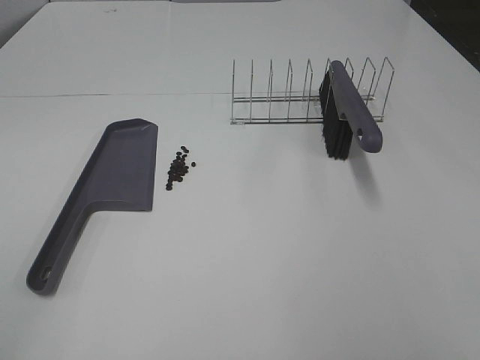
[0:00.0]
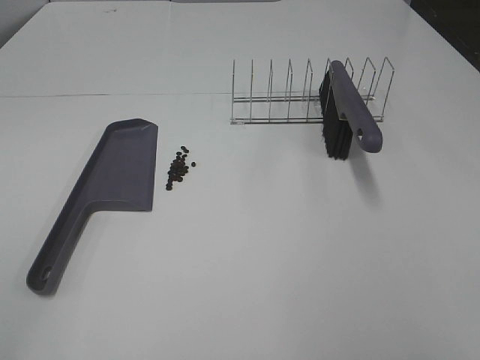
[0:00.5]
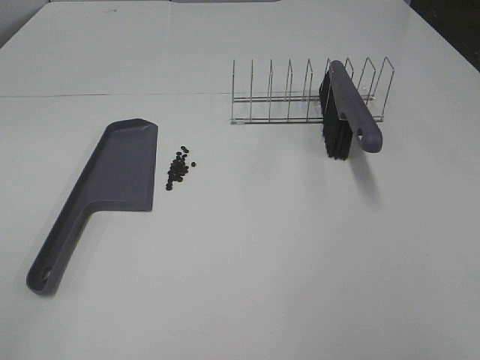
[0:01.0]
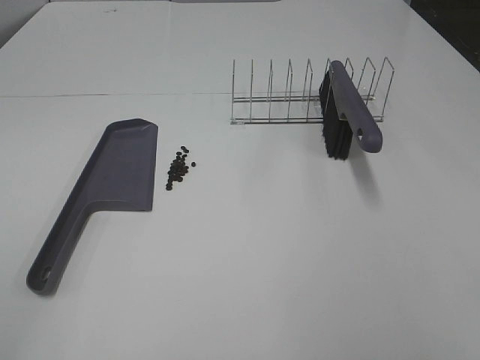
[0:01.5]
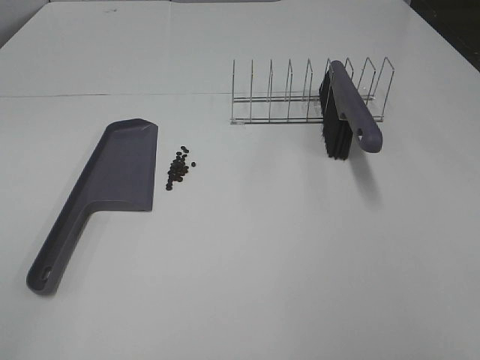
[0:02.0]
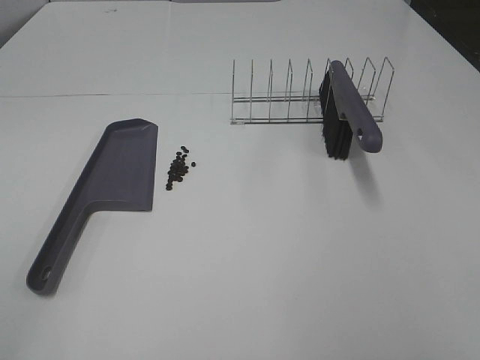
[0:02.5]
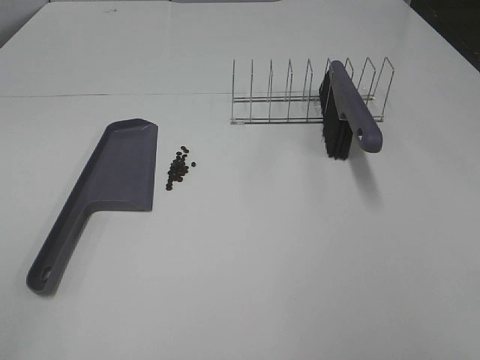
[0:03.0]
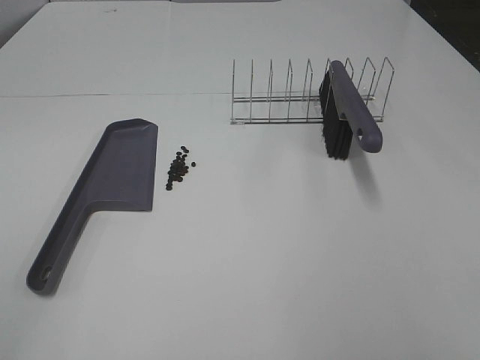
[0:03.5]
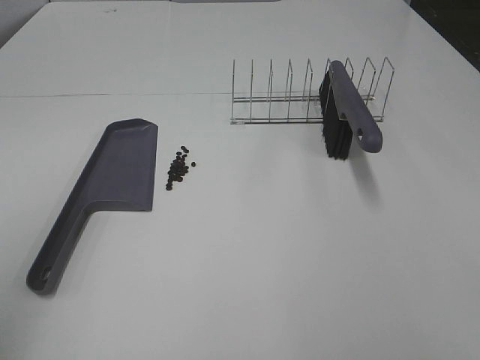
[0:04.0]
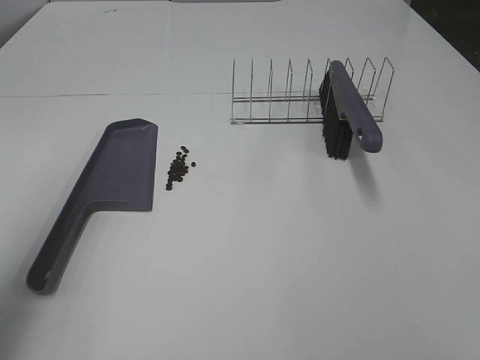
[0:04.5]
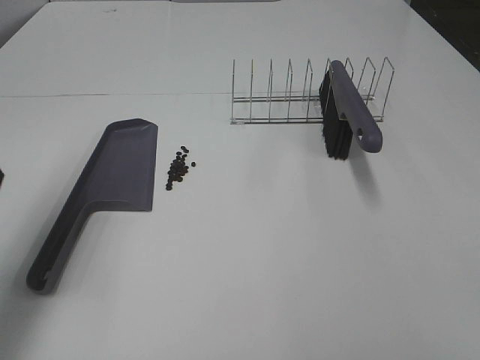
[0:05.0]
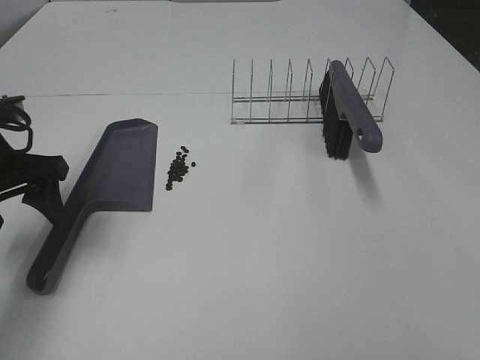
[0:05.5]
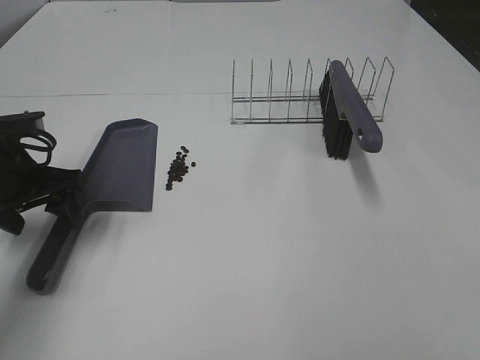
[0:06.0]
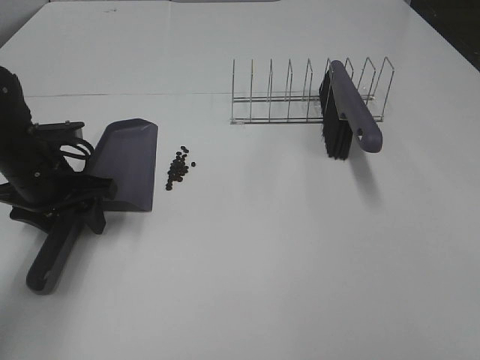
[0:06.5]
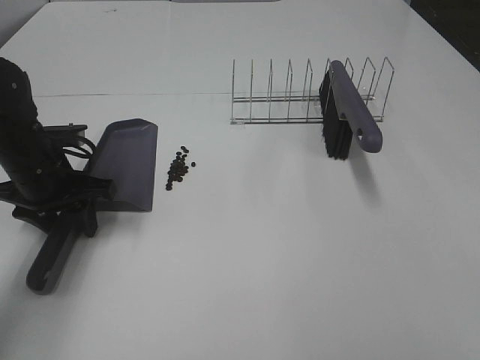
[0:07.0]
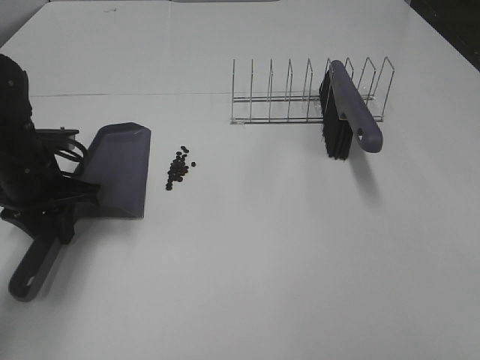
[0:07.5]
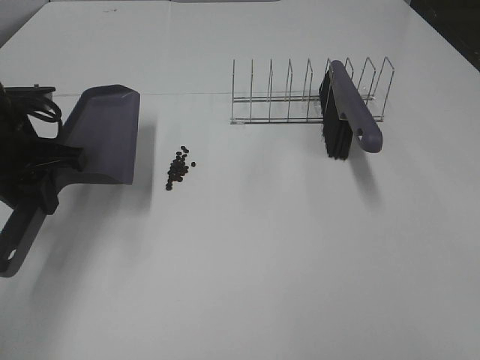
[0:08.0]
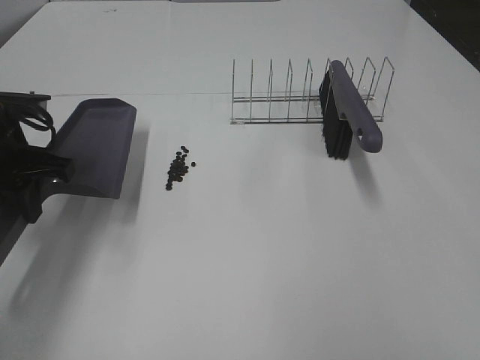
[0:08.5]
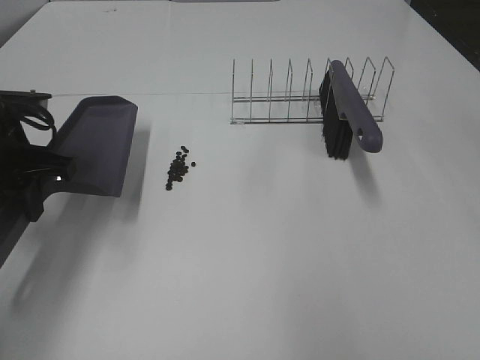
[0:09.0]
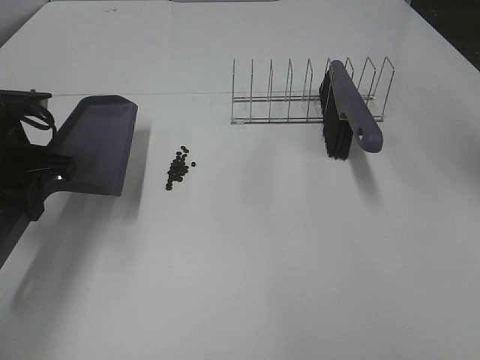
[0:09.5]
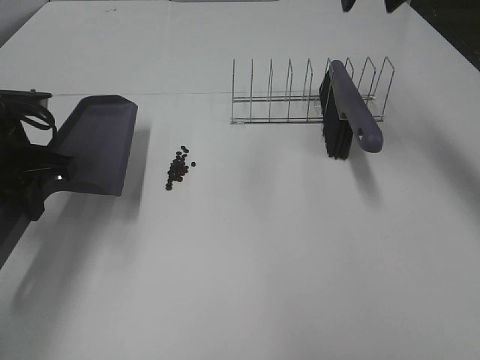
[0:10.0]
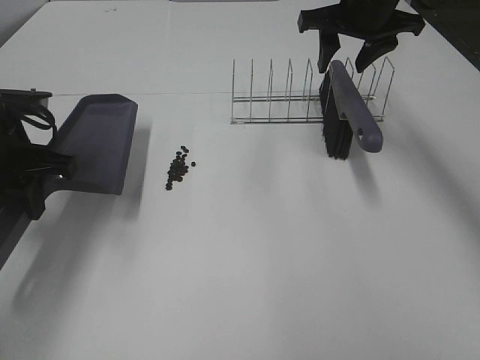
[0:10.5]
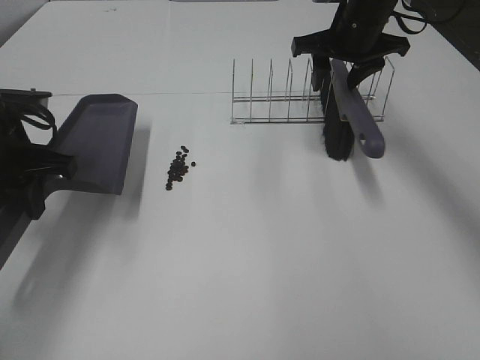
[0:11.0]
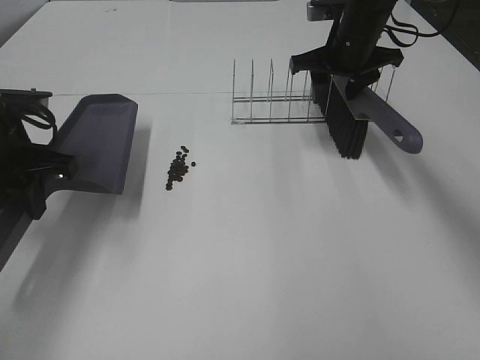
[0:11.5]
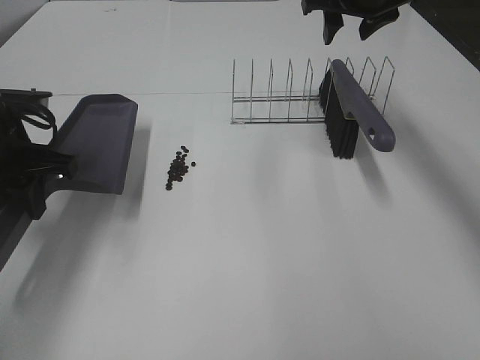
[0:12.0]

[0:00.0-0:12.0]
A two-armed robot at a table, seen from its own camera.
Task of the whole recording: Sweep Coffee Bean.
Step, 0:00.0 to 0:07.0: Left hand: grab the dustpan.
0:00.0 to 0:02.0: Both grippers stay about where they are.
0:04.0 to 0:06.0: The left gripper travels forward and downward by roughly 35 cm.
0:06.0 to 0:08.0: The left gripper moves roughly 5 cm, and closes.
0:08.0 to 0:10.0: The right gripper moves forward, approximately 40 cm.
0:10.0 to 0:12.0: The right gripper moves downward and forward, some 10 cm.

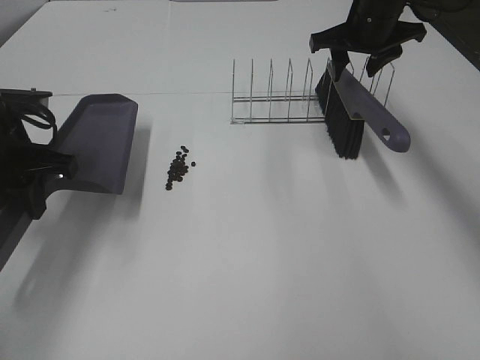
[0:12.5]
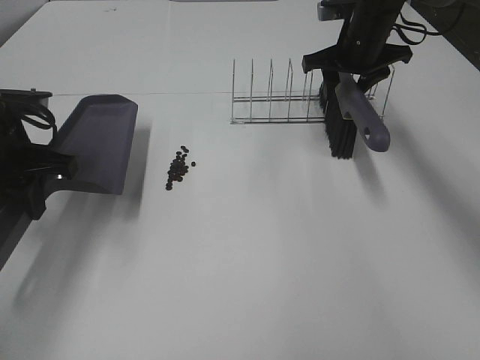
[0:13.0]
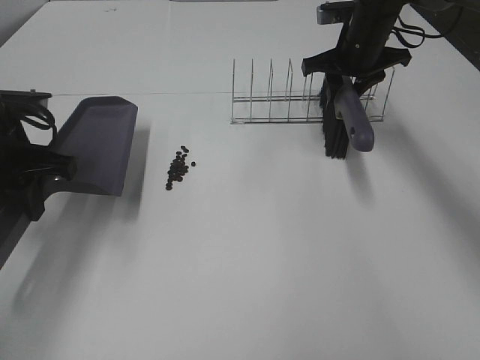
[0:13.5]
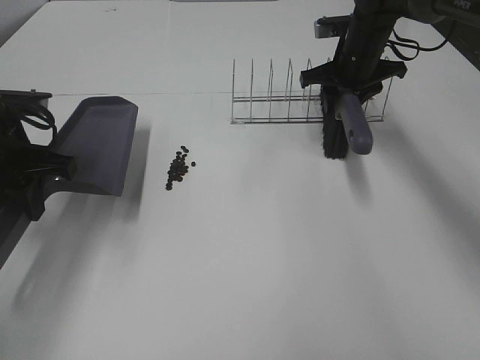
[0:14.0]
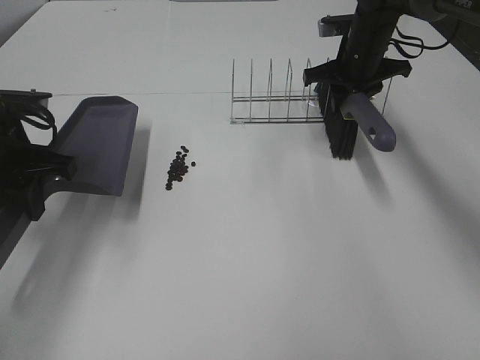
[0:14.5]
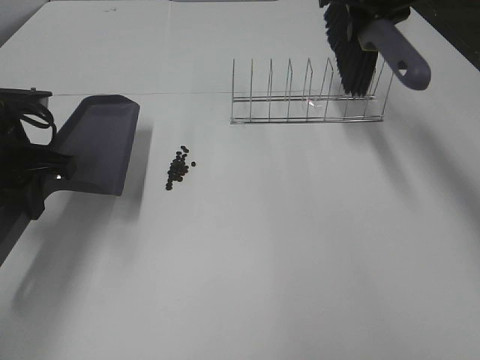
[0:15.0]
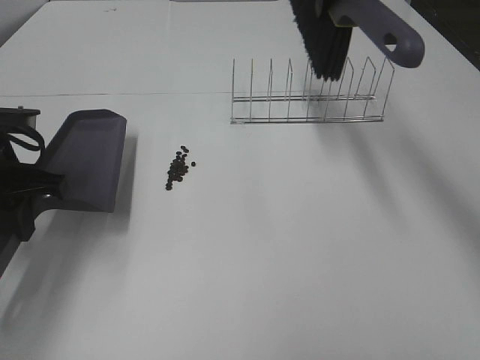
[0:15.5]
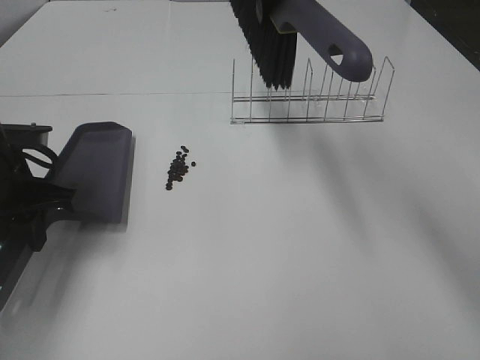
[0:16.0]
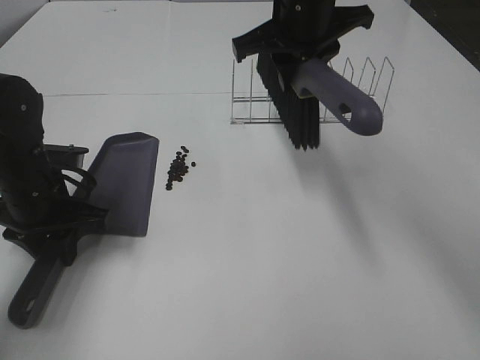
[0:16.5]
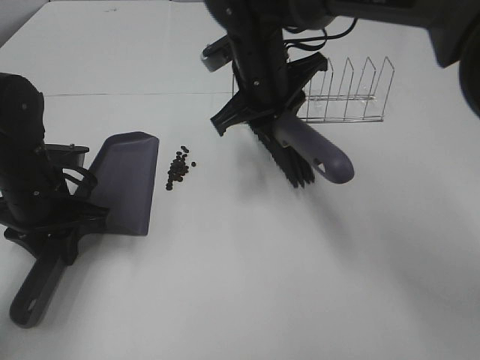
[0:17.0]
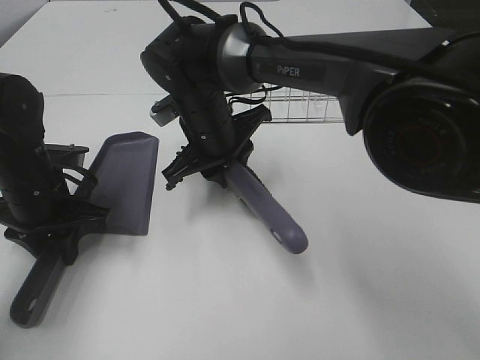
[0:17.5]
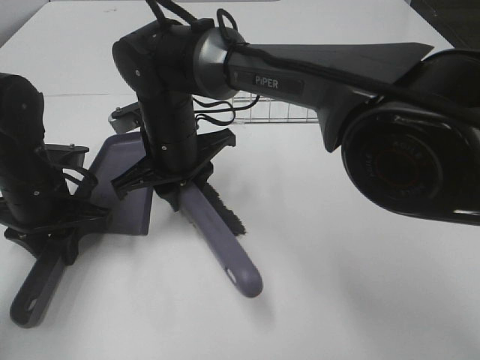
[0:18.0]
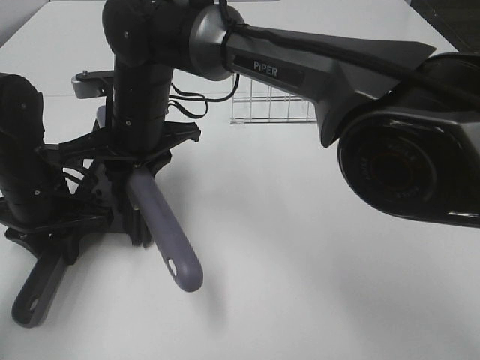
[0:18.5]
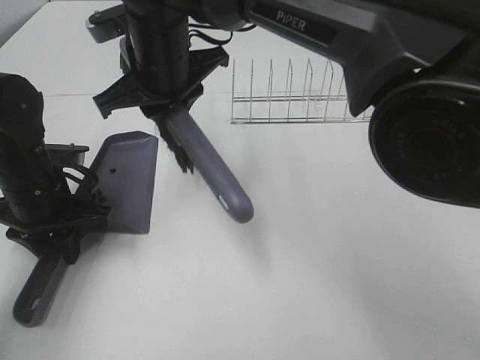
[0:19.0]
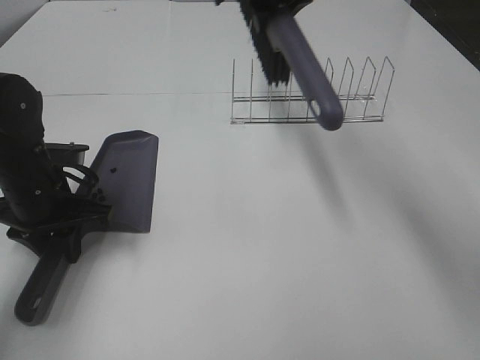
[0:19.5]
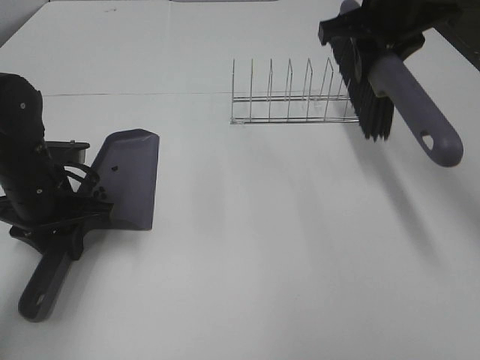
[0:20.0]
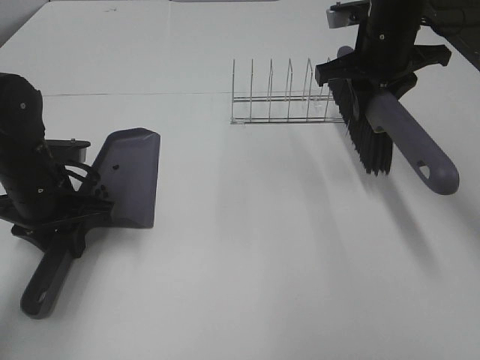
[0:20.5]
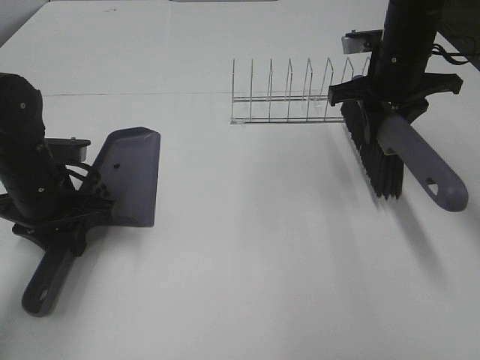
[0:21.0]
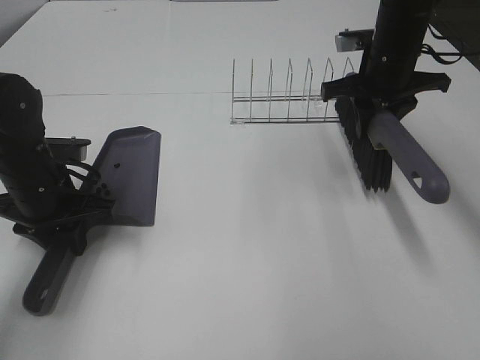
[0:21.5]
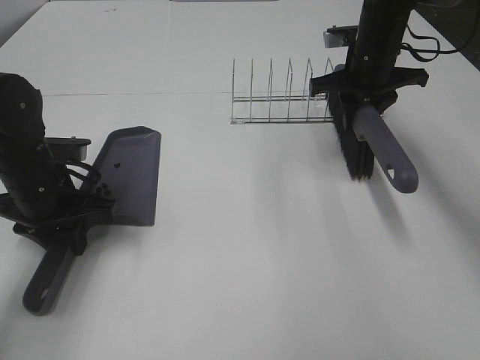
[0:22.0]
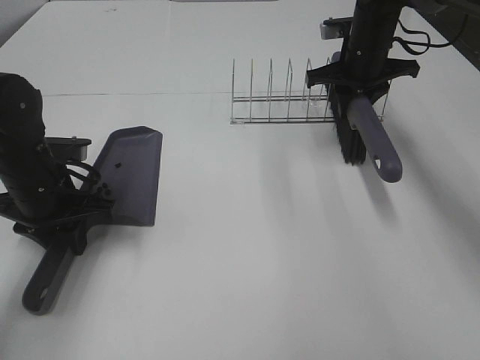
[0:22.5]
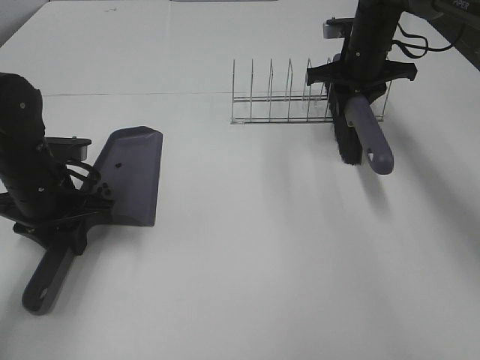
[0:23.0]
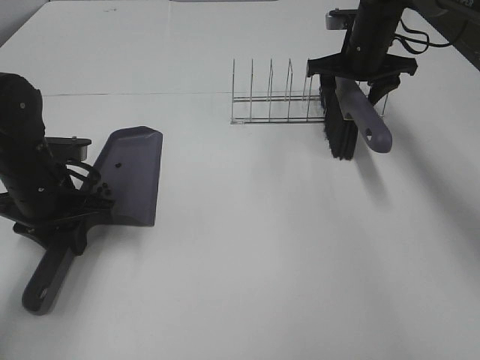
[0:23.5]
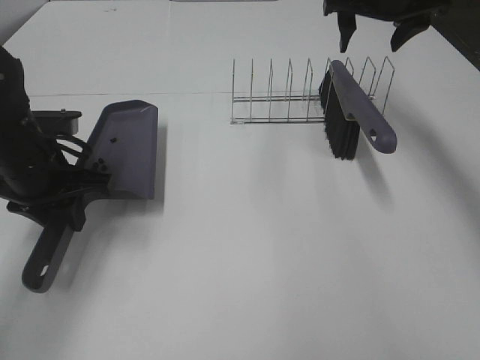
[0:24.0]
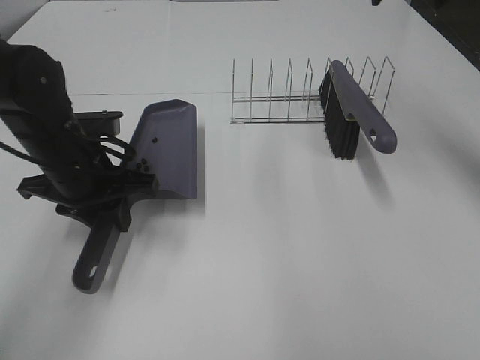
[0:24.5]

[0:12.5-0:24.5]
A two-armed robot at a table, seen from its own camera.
Task of the whole recording: Sweep Coffee Bean.
Step, 0:12.5 to 0:16.0: Left hand: move the dustpan to the left side of the coffee beans.
Step, 0:14.0 to 0:18.5: Right hand:sweep the coffee beans into the dustpan.
Step, 0:19.0 to 0:23.5: Right hand:place the broom on the rack.
0:12.5 to 0:14.5: The right gripper goes roughly 5 cm downward, and closes up.
0:14.5 to 0:16.5: The left gripper heads downward, covering approximately 10 cm, while the right gripper heads to the left, backward and upward, covering roughly 20 cm.
0:16.5 to 0:18.5: The right gripper travels to the left and downward by approximately 20 cm.
0:18.5 to 0:20.5: The right gripper goes approximately 30 cm to the right.
0:20.5 to 0:22.5: The right gripper goes approximately 10 cm forward and downward.
0:22.5 to 0:24.5: The left gripper ends up roughly 5 cm from where it was, while the right gripper is displaced upward and backward by roughly 20 cm, and opens up.

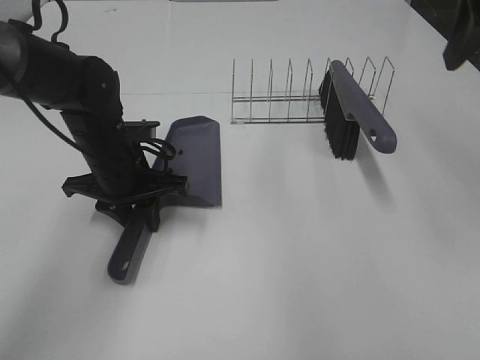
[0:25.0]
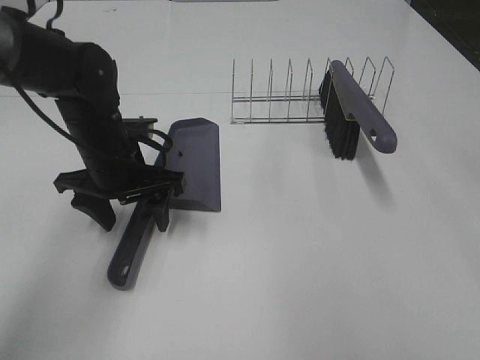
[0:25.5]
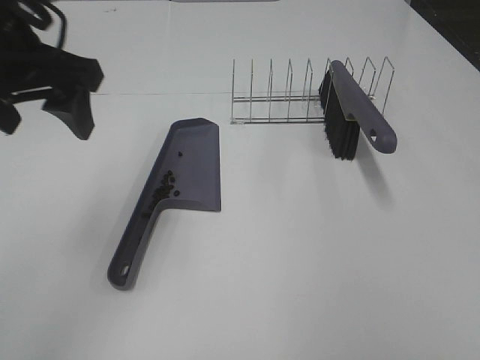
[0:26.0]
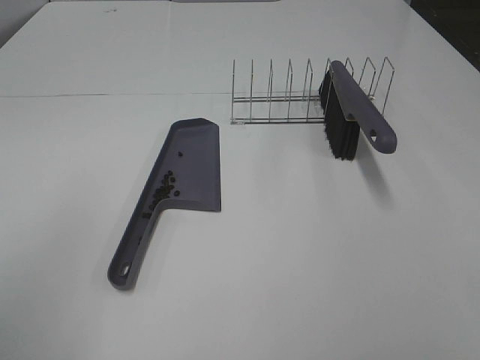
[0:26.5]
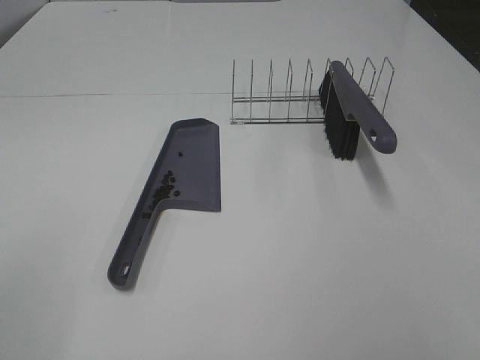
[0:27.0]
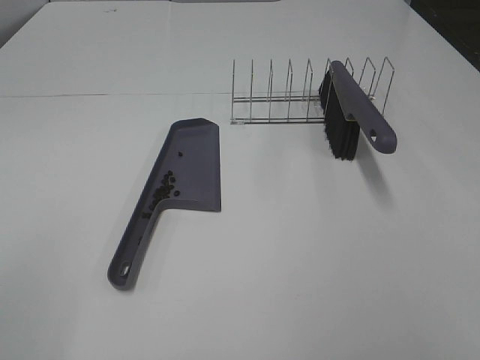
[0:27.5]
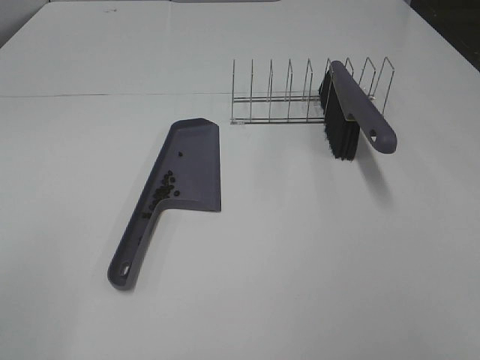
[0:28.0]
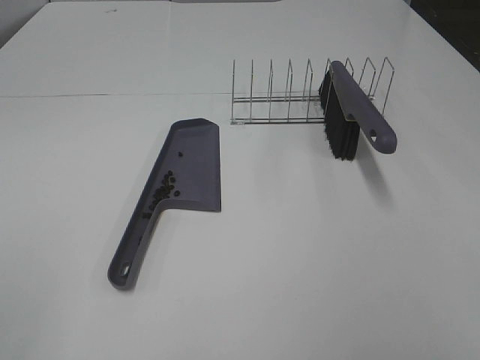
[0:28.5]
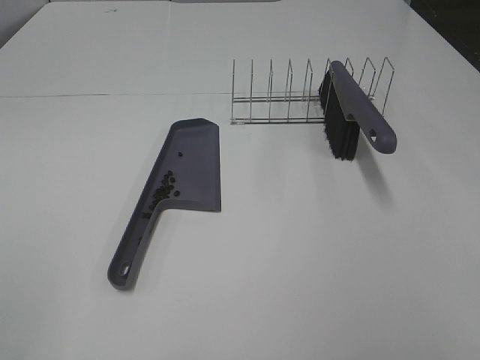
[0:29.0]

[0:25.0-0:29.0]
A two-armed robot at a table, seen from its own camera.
Task of the whole recording: Sweep Coffee Bean.
0:25.0 to 0:27.0: The right gripper is displaced backward by some 25 cm. Meanwhile the left gripper shifts about 40 cm backward, upward and to the left, and opens its fingers.
